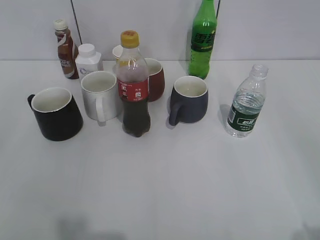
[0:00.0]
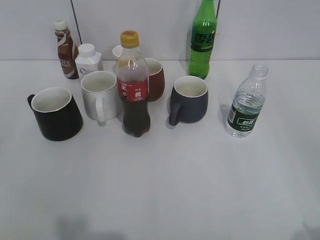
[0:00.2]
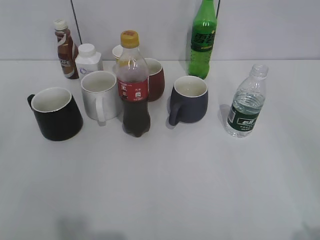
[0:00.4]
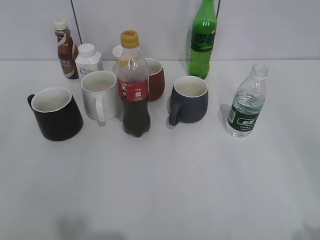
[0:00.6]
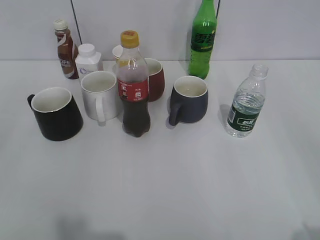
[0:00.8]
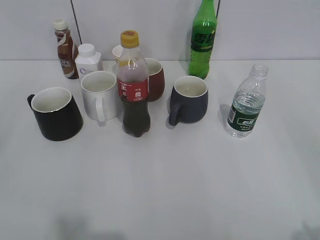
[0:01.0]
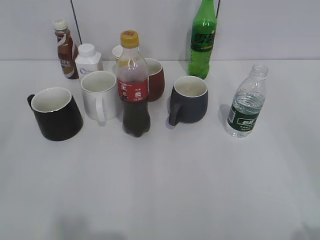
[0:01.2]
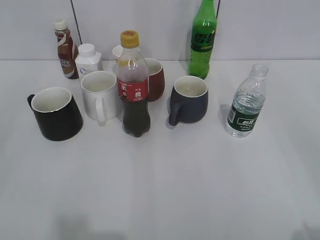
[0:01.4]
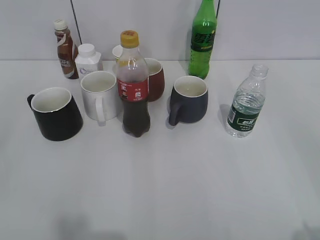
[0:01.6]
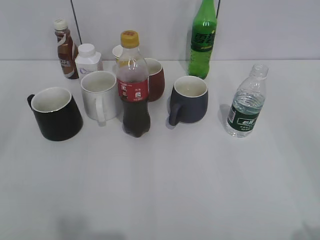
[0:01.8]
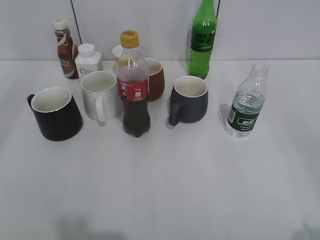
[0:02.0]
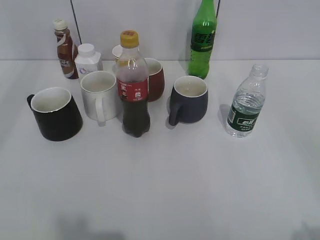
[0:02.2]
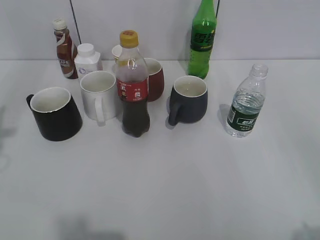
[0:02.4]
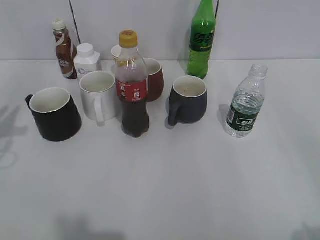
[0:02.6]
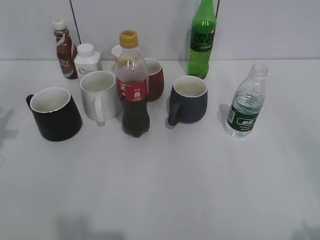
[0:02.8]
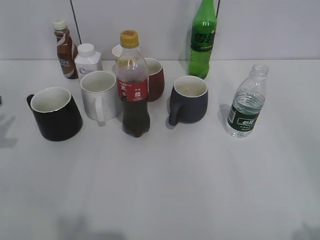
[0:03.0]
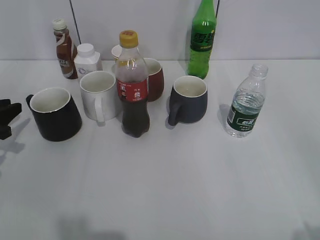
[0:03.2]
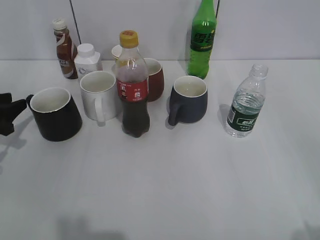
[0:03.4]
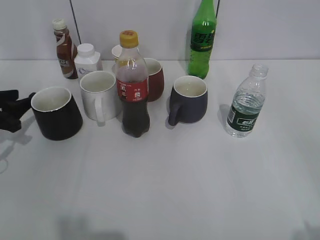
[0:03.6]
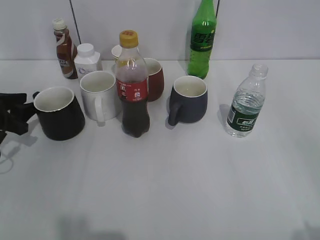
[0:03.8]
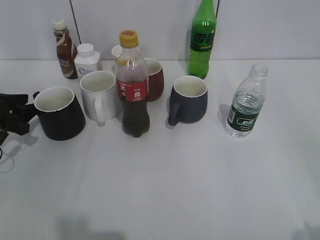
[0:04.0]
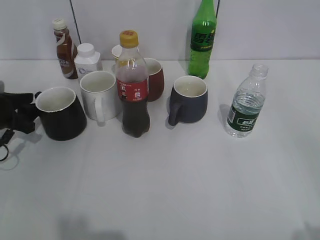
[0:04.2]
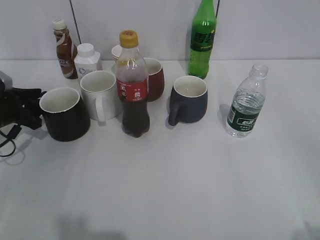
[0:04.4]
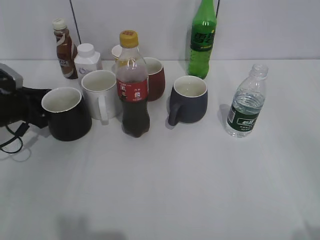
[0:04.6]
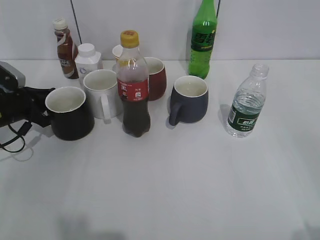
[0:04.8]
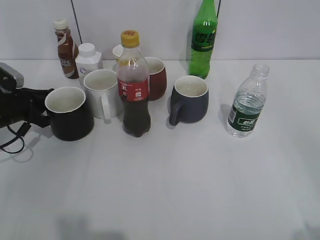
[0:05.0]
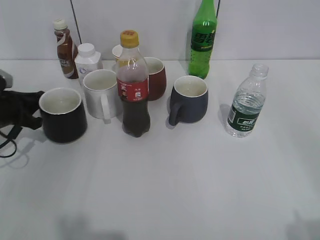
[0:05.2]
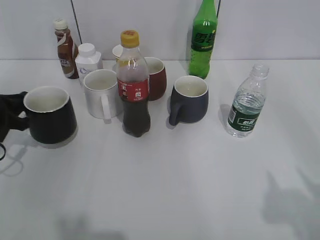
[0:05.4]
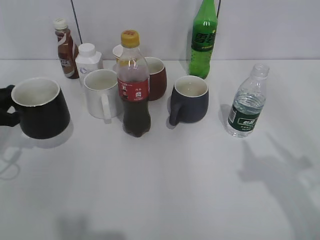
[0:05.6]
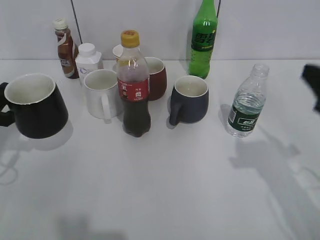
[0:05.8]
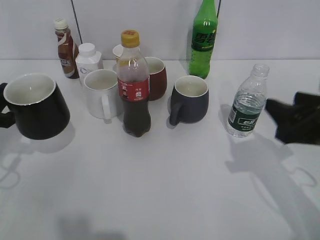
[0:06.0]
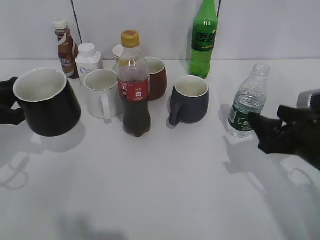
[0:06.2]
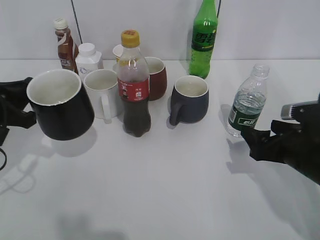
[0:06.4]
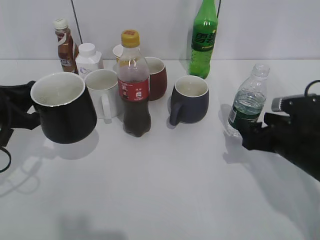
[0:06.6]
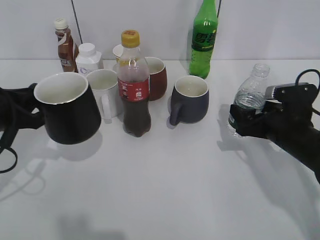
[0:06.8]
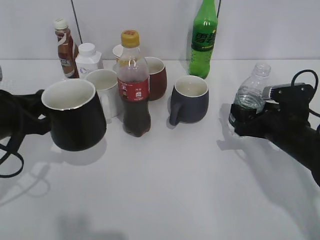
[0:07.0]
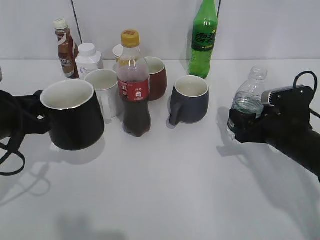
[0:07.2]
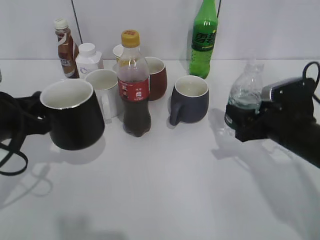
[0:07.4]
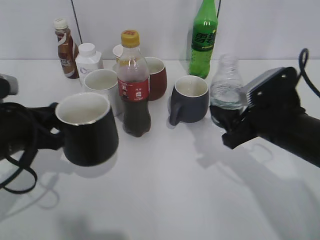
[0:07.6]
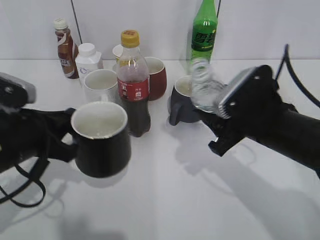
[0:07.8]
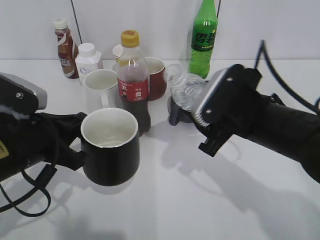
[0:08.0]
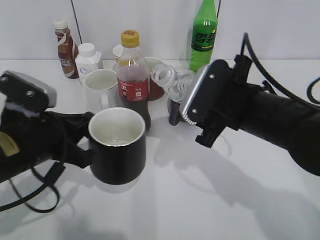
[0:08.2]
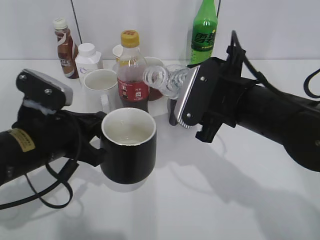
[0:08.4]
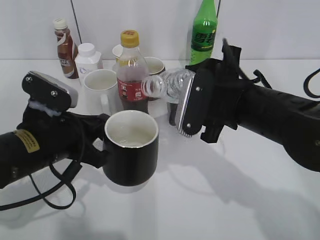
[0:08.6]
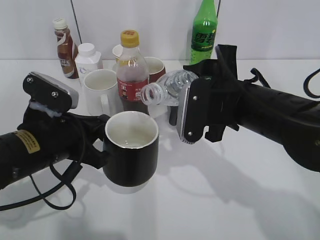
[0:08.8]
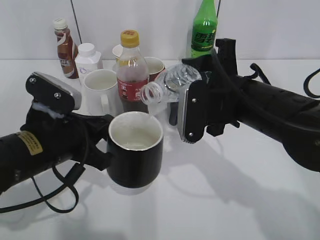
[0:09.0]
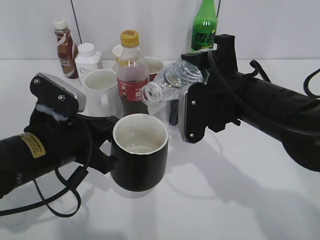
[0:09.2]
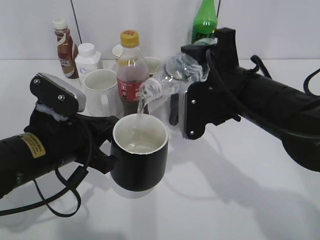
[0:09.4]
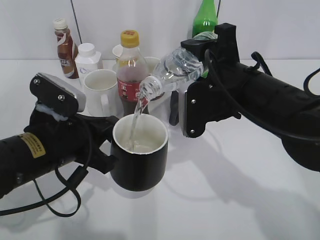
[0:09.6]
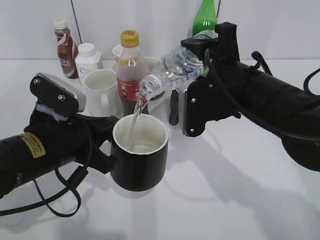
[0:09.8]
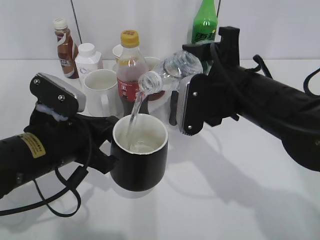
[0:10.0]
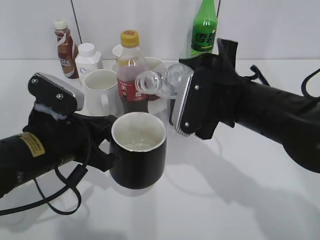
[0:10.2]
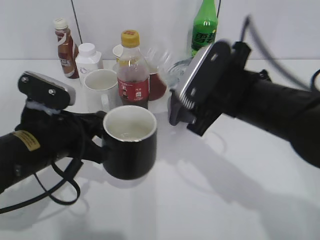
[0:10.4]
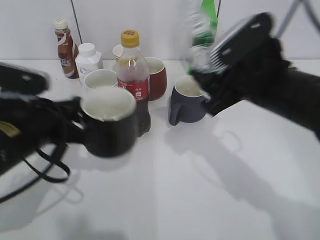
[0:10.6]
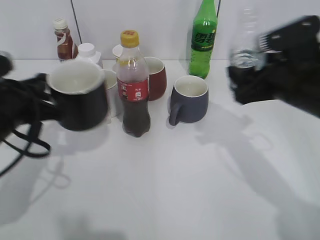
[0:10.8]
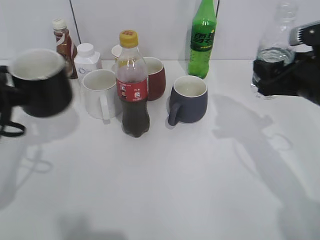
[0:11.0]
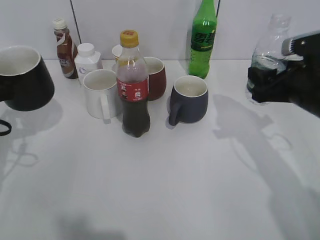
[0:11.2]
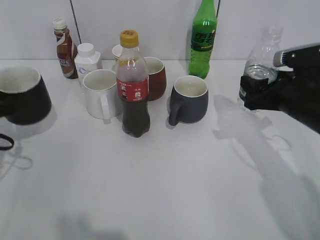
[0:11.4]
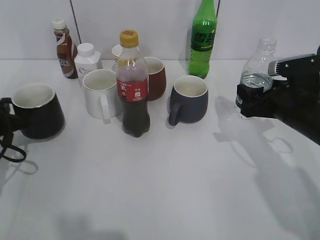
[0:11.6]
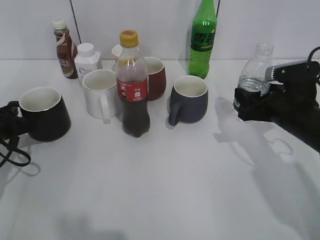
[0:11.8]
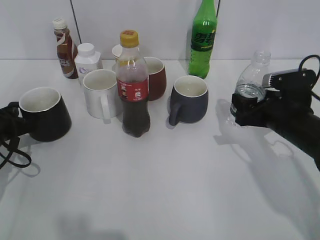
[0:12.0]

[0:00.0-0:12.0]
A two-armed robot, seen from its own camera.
Step, 0:01.8 to 0:04.8: Grasp the black cup with left gripper.
Step, 0:05.0 to 0:05.6: Lift the black cup with left gripper.
Step, 0:05.8 to 0:07.0: Grasp the bottle with water with right gripper.
Step, 0:07.2 to 0:10.2: Pour the water from bottle to cup with right gripper.
0:01.6 to 0:03.0: The left gripper moves forward and downward, about 30 cm.
0:03.0 to 0:04.4: The left gripper is displaced forward and downward by some 10 cm, and opens its fingers.
0:04.4 to 0:06.0: The right gripper goes some 20 cm forward and downward. Meanwhile the left gripper goes some 10 cm backward and upward, and closes.
0:06.0 to 0:07.6: The right gripper heads downward, forward and to the left, covering roughly 10 cm, and opens and closes again; the left gripper travels to the right by roughly 10 cm.
0:07.6 to 0:09.0: The right gripper travels to the left and upward by about 10 cm, while the left gripper heads to the right, covering approximately 5 cm.
0:10.4 to 0:12.0: The right gripper travels to the right and downward by about 15 cm; the left gripper is displaced to the left, forward and downward by roughly 20 cm.

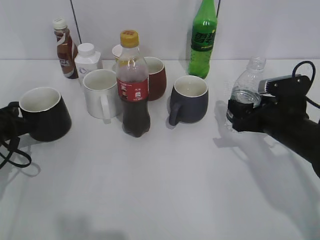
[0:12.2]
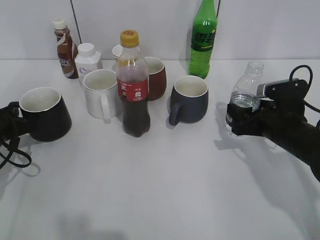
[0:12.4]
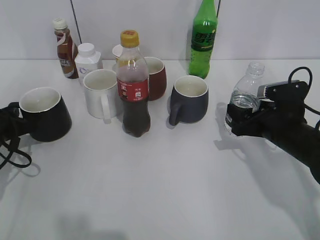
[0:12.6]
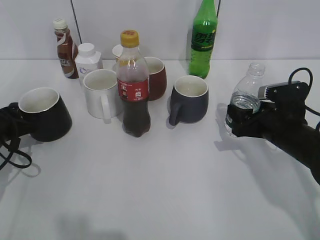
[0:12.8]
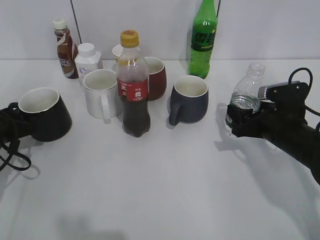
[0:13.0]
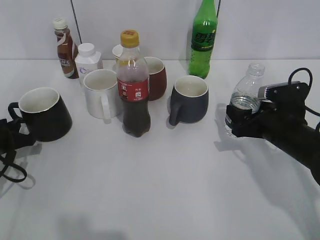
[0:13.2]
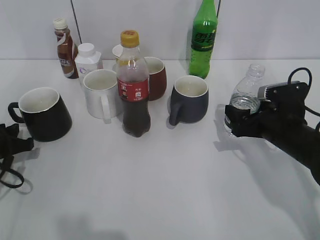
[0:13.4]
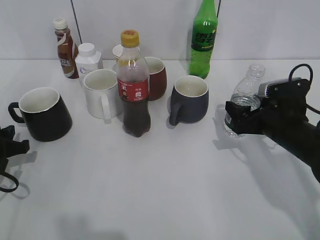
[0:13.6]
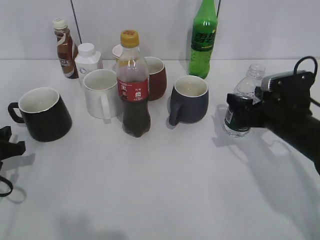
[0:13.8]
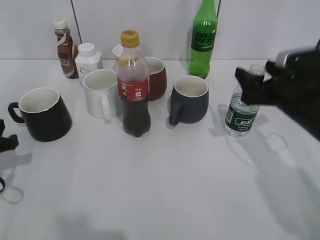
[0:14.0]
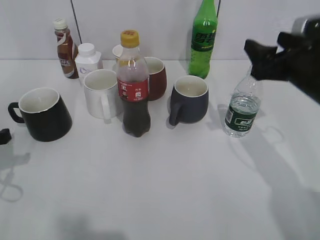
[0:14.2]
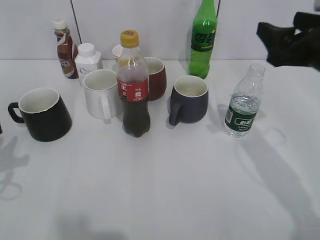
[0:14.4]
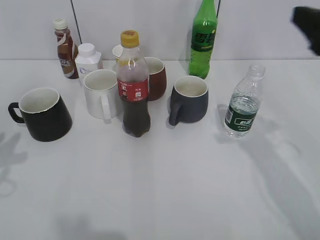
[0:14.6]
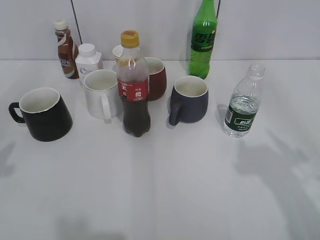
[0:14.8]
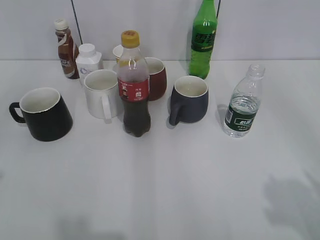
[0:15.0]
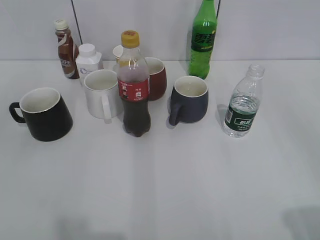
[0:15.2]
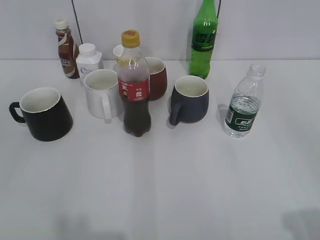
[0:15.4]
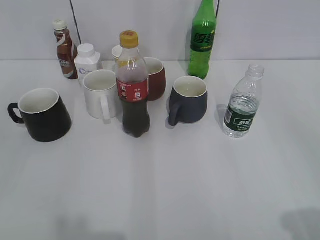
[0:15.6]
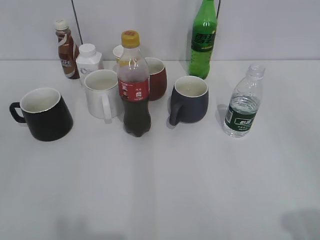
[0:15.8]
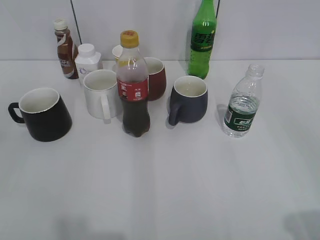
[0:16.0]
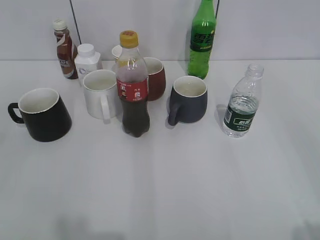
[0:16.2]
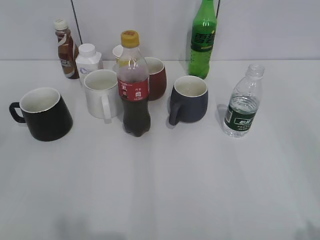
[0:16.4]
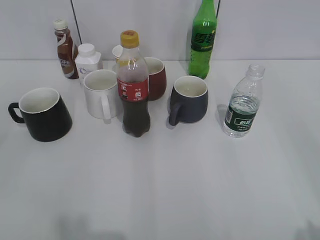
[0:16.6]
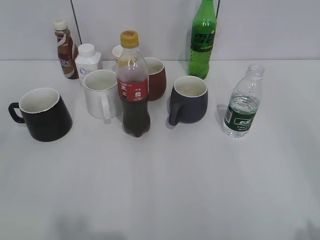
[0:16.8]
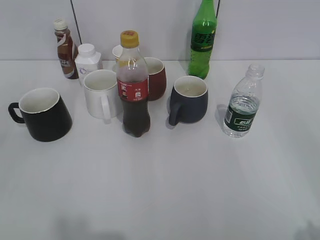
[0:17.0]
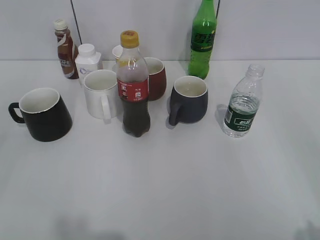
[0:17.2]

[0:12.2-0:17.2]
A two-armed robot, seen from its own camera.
0:12.2 to 0:13.8: The left gripper opens its fingers; the right gripper opens.
0:13.8 to 0:15.6: The grippers both shift backward and upward by approximately 30 cm. The left gripper opens up.
